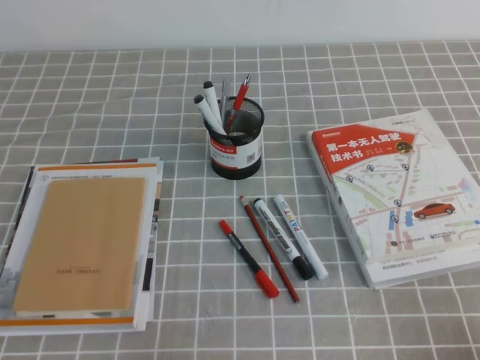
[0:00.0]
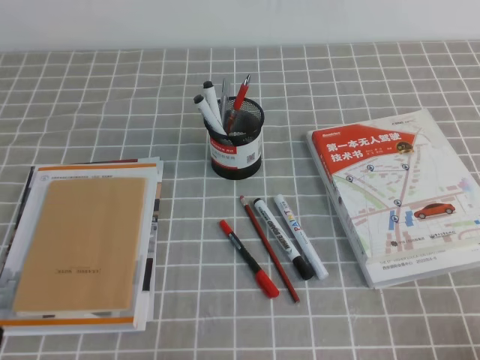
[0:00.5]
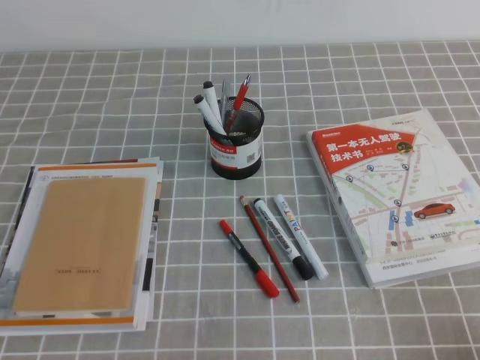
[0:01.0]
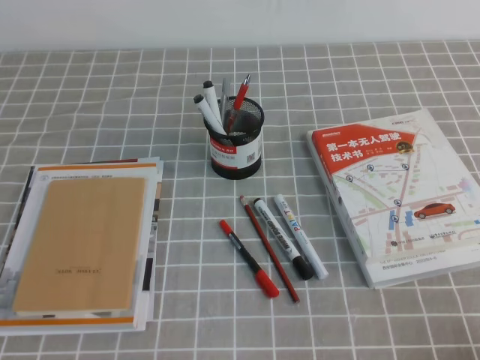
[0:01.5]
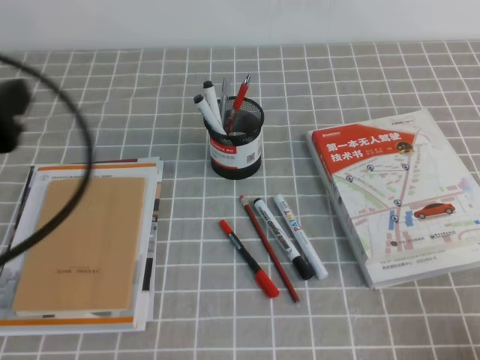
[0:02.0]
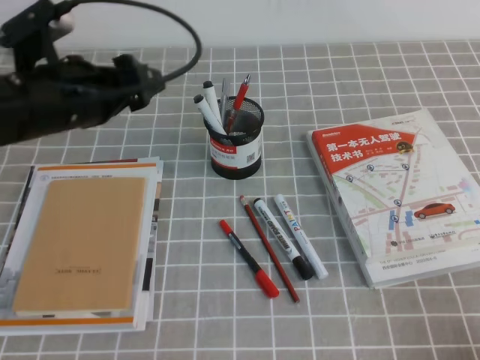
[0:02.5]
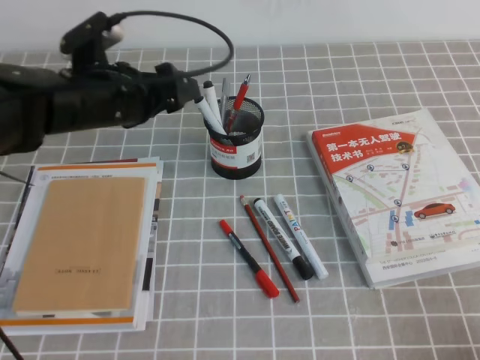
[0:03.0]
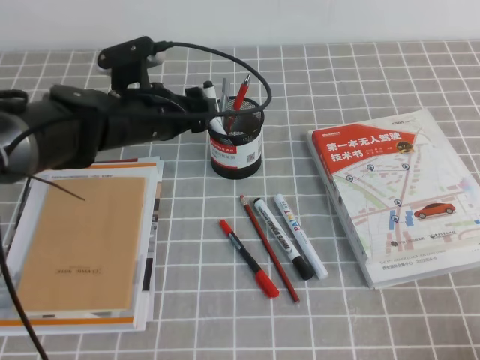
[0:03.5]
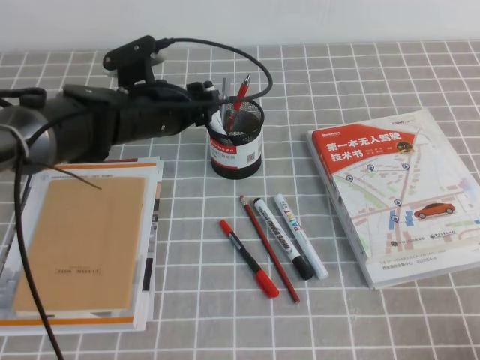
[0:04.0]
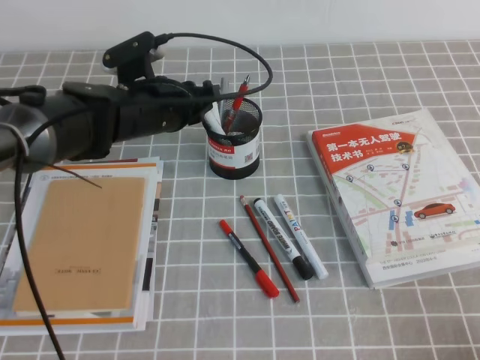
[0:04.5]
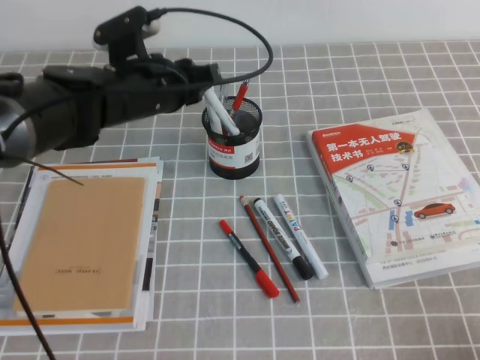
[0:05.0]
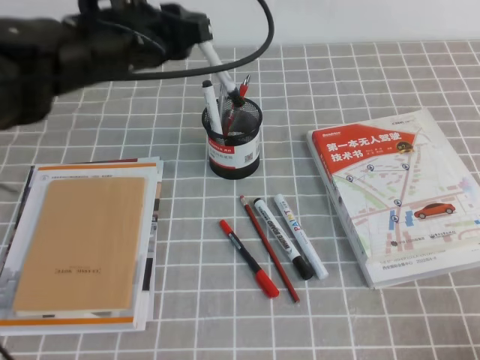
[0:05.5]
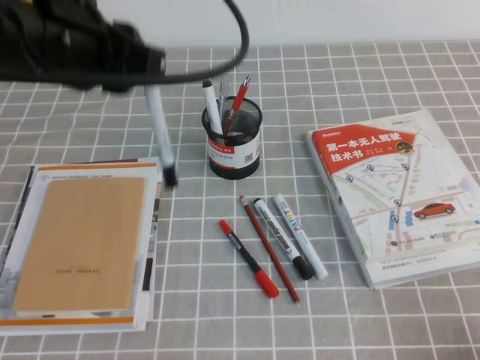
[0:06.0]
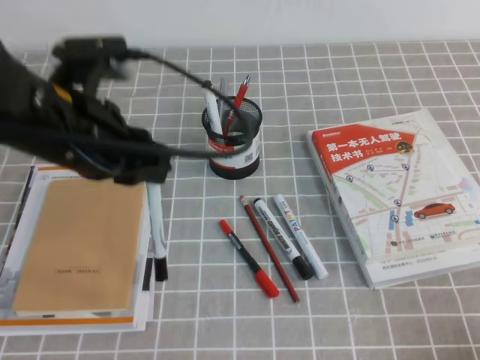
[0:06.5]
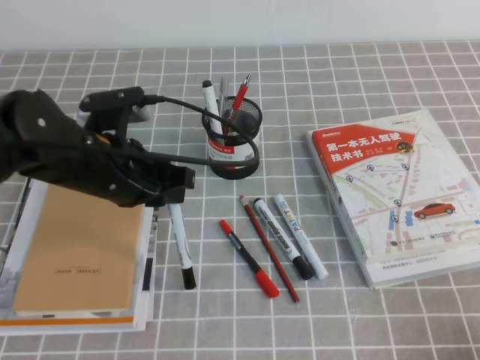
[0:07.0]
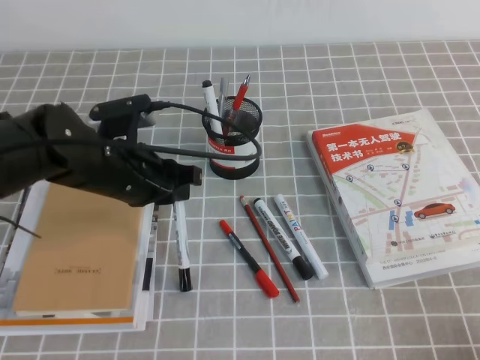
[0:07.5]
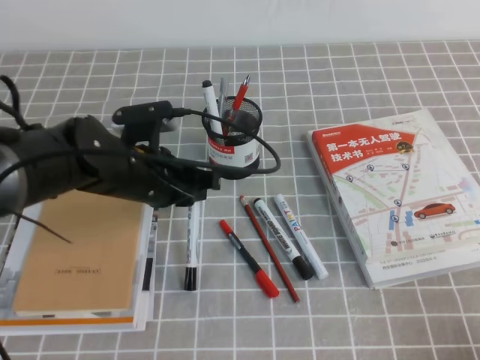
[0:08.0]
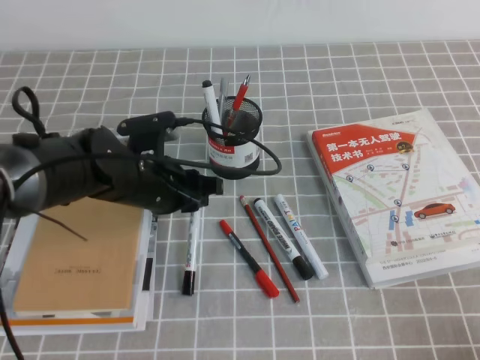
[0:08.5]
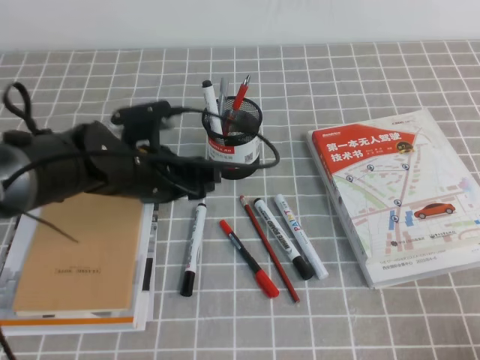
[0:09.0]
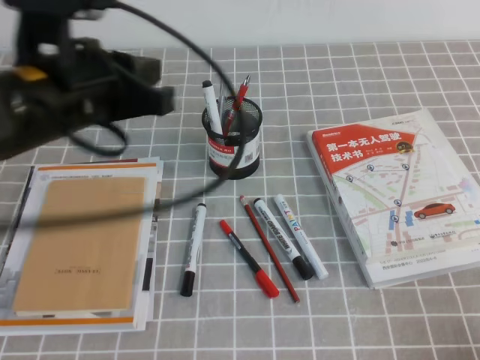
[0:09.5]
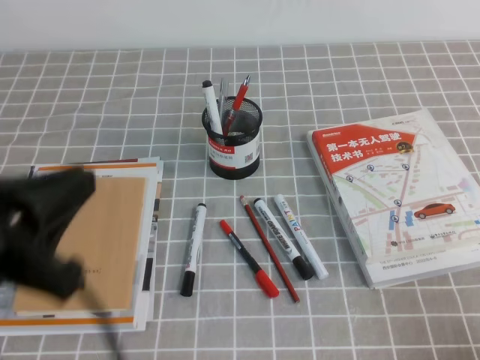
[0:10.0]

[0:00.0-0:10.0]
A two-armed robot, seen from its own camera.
0:00.0 to 0:02.0: The left gripper heads upward and forward, covering some 25 cm, and opens.
0:02.0 to 0:04.0: The left gripper goes approximately 30 cm forward, to the right and downward.
0:04.0 to 0:06.0: The left gripper moves upward and backward, approximately 20 cm, and closes up.
0:06.0 to 0:08.0: The left gripper goes about 20 cm downward.
0:08.0 to 0:10.0: The left gripper travels backward, upward and to the left by about 25 cm, and opens and closes again.

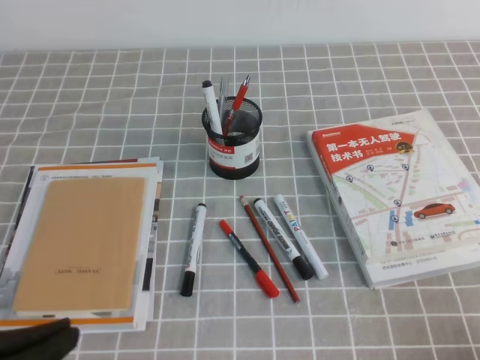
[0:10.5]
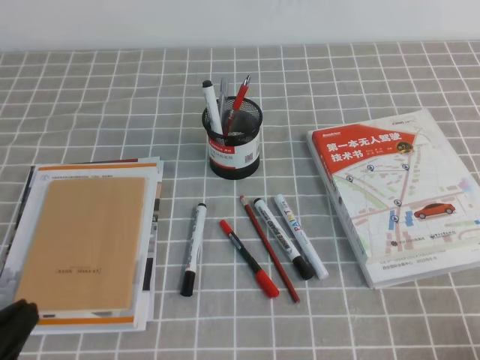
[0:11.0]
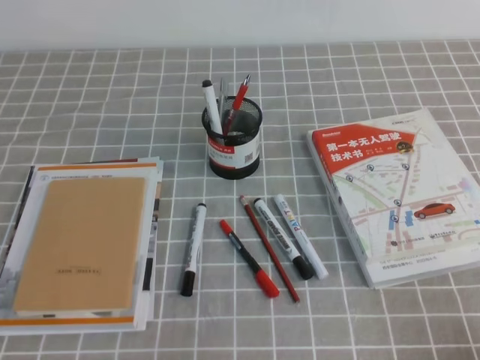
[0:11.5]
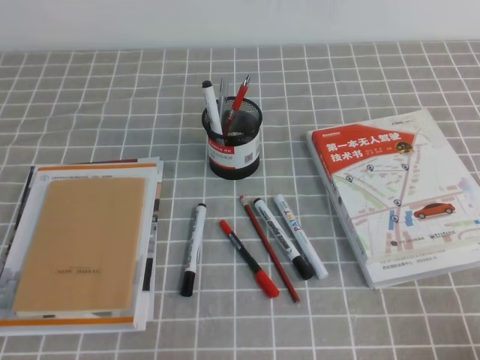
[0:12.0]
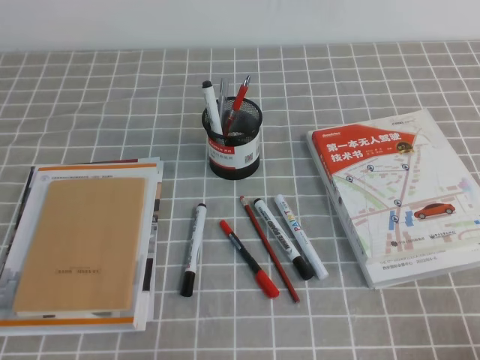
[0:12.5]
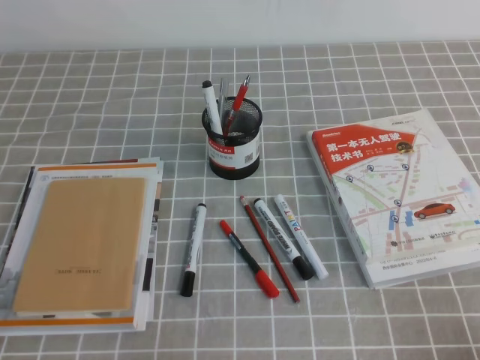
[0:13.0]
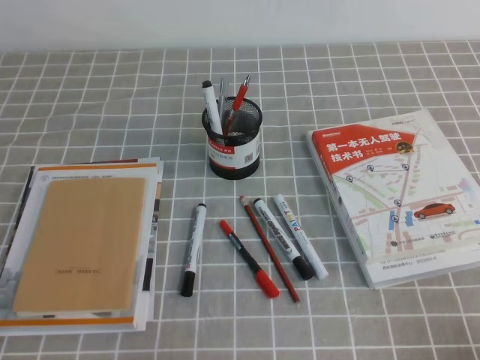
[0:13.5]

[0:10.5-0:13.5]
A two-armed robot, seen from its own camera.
Step, 0:10.5 to 0:13.5: Pick up the pen from the pen holder.
0:10.5 to 0:12.0: The left gripper moves downward, some 15 cm.
0:12.0 to 0:13.5: The two grippers keep their place.

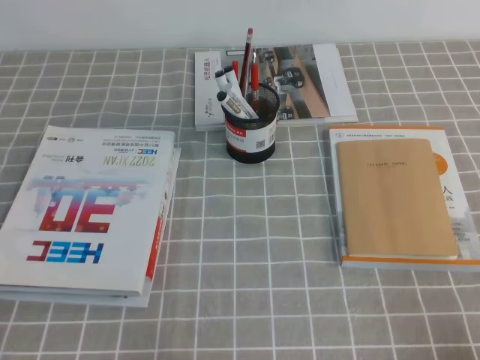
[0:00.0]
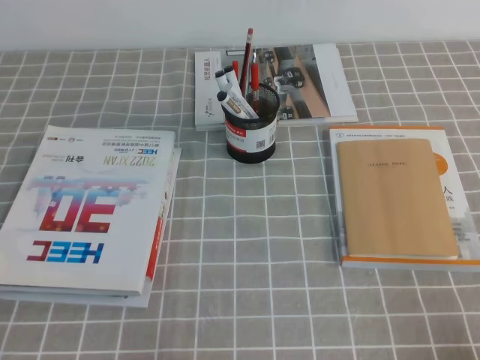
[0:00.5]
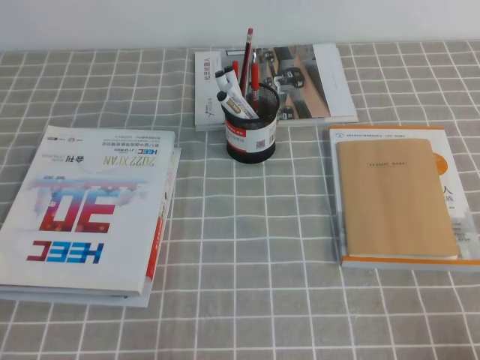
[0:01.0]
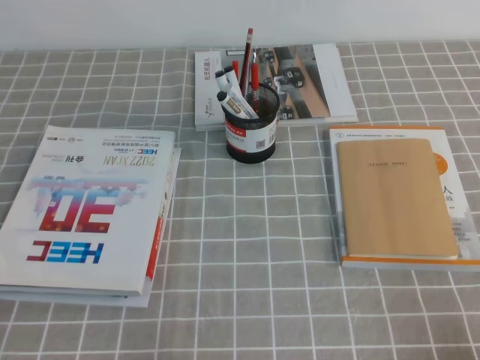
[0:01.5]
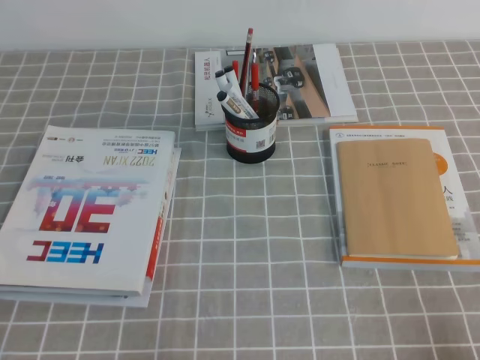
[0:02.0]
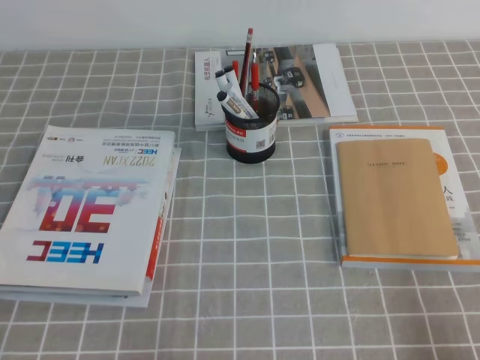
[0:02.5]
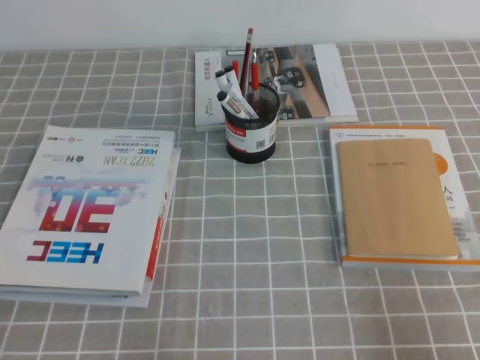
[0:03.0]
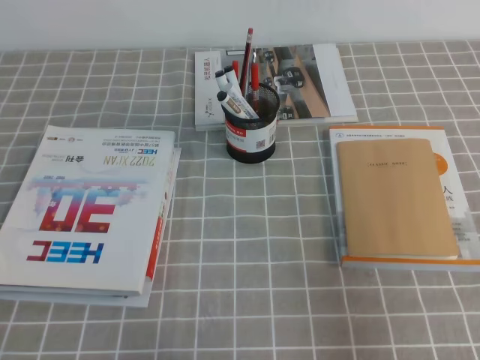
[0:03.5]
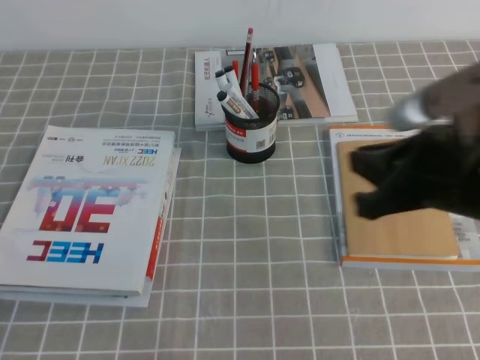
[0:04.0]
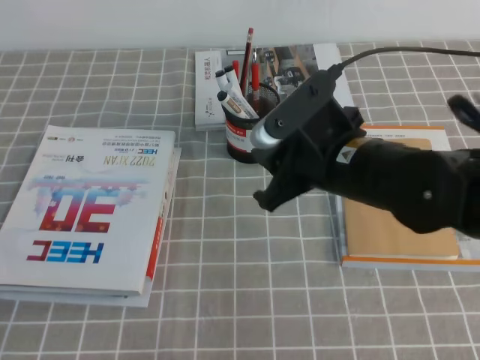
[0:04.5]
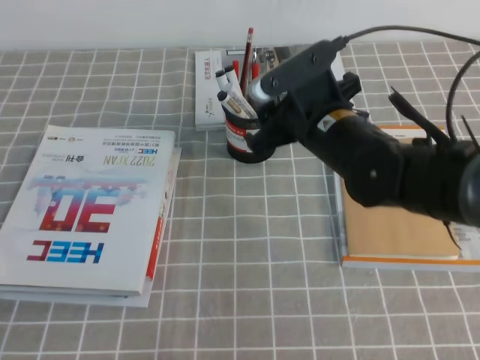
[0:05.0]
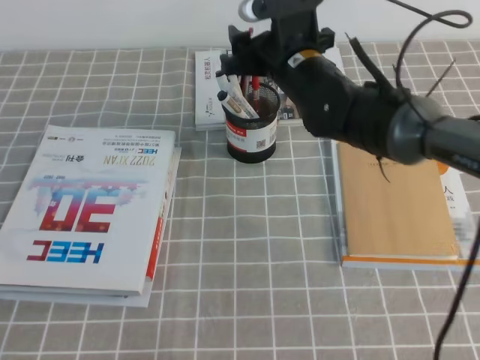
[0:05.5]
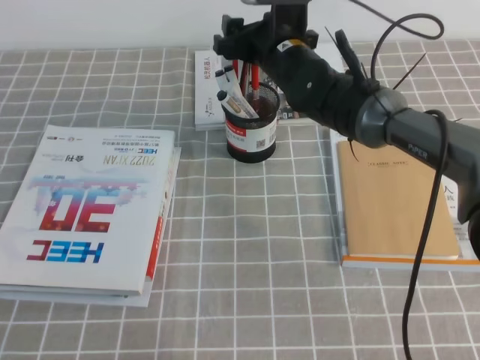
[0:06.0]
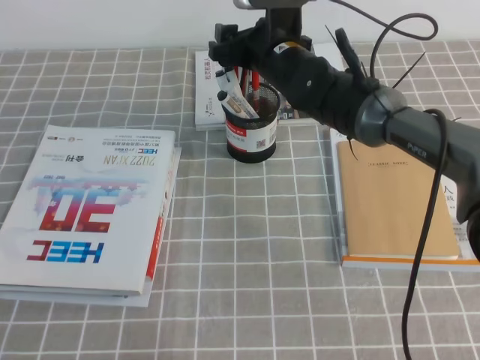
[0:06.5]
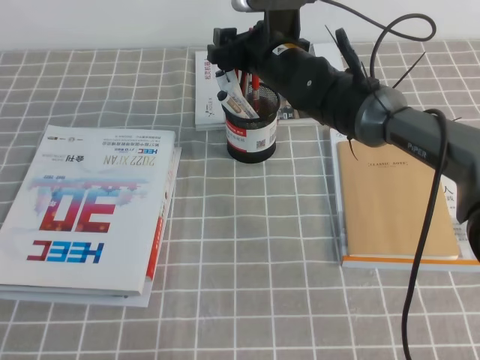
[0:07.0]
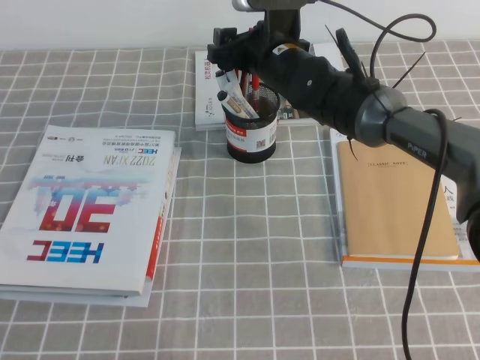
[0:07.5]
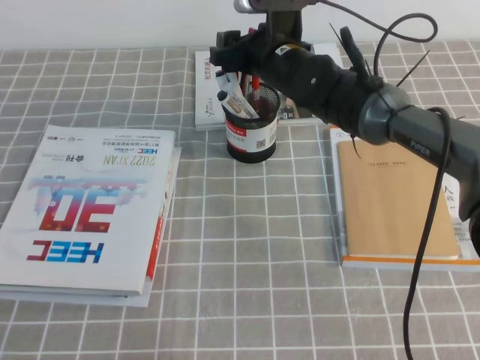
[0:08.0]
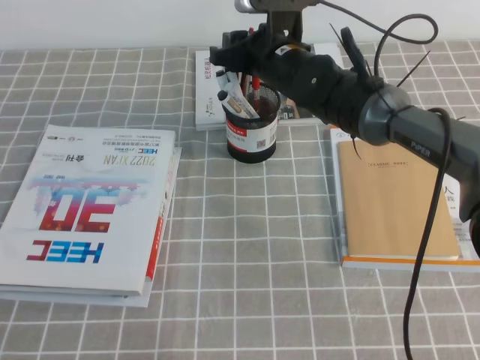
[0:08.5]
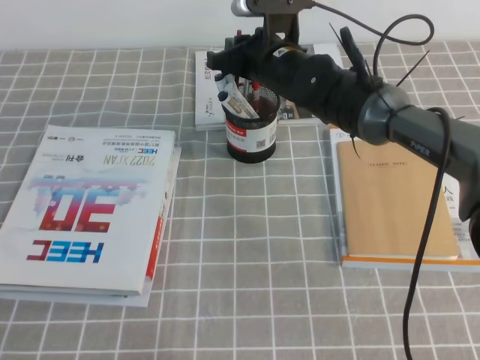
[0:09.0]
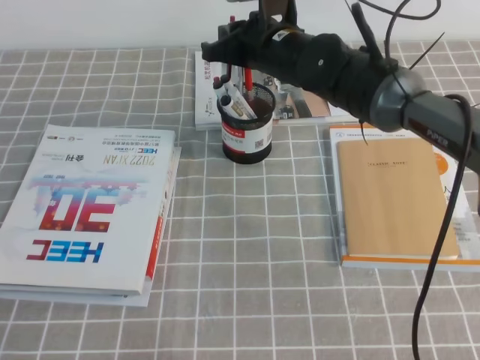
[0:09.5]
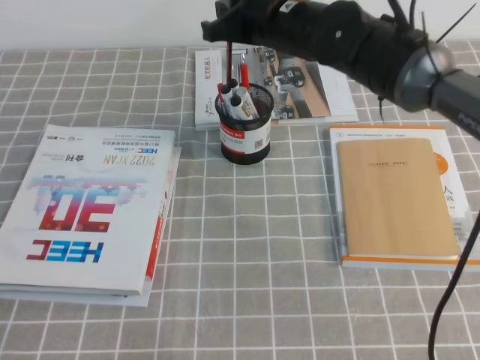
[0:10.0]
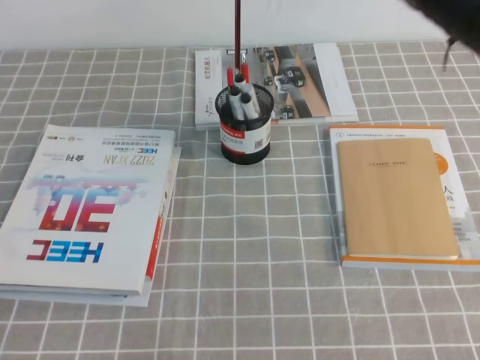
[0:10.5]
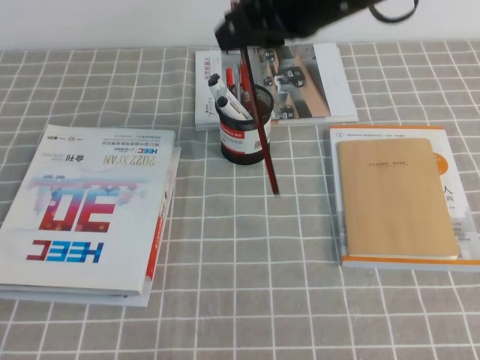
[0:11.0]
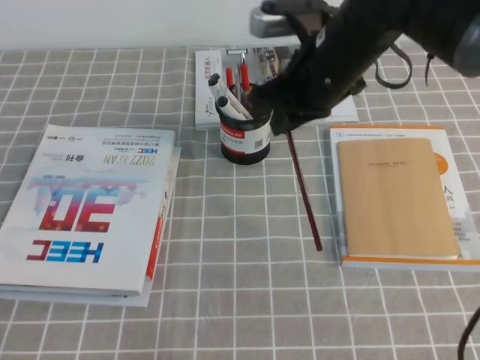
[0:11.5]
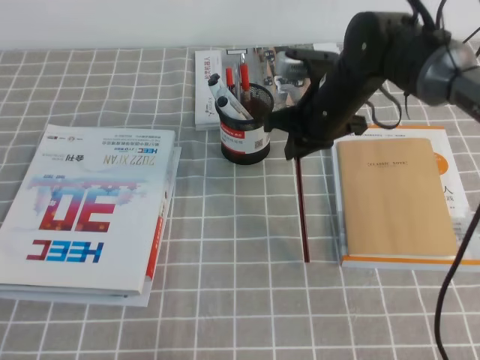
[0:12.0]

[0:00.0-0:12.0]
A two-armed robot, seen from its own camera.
0:02.0 to 0:04.0: The right gripper is displaced forward, upward and to the left by approximately 25 cm.
0:04.0 to 0:06.0: The right gripper shifts roughly 30 cm forward and to the left, and opens its fingers.
0:06.0 to 0:08.0: There are only small adjustments of the grippers.
0:08.0 to 0:10.0: The right gripper goes approximately 5 cm upward, and closes its fingers.
0:10.0 to 0:12.0: The right gripper goes roughly 10 cm downward and to the right.
